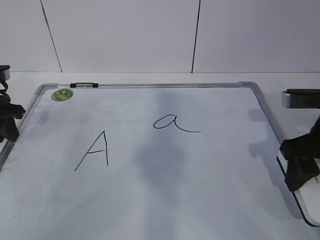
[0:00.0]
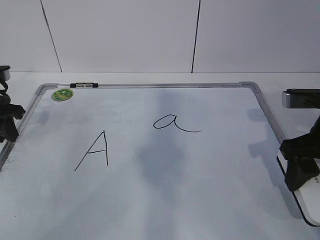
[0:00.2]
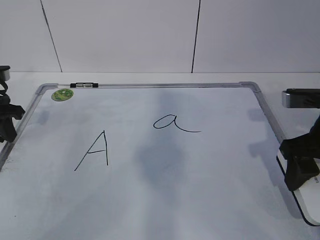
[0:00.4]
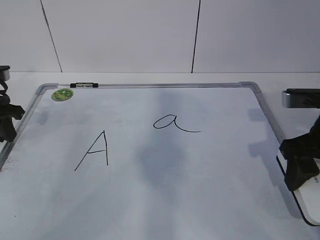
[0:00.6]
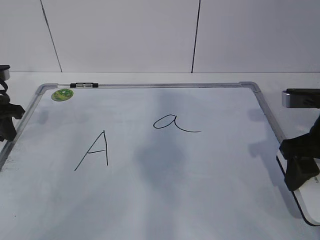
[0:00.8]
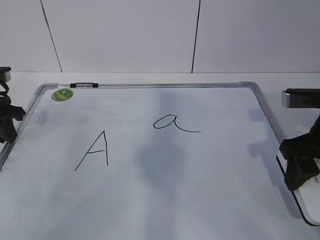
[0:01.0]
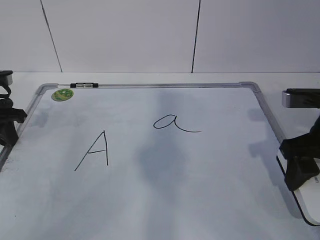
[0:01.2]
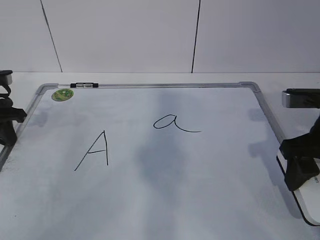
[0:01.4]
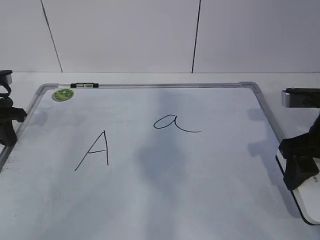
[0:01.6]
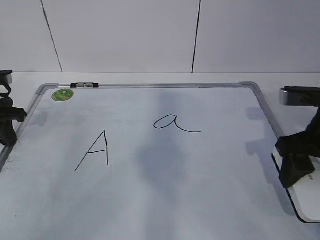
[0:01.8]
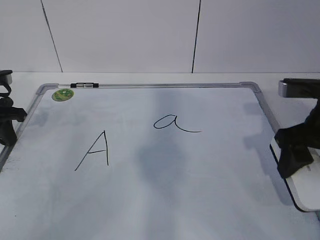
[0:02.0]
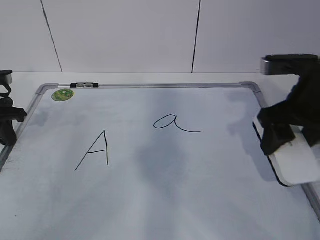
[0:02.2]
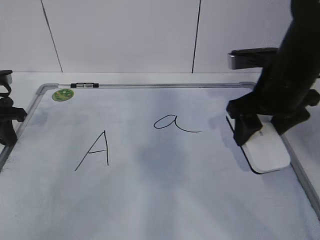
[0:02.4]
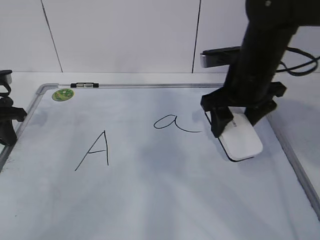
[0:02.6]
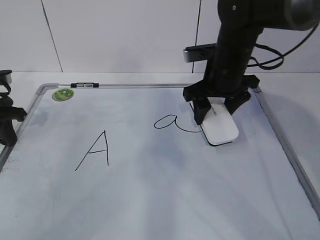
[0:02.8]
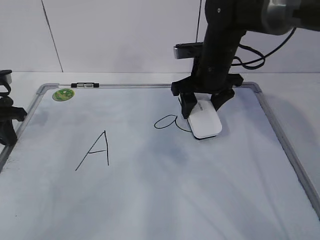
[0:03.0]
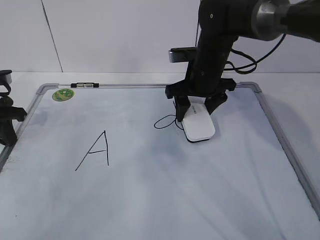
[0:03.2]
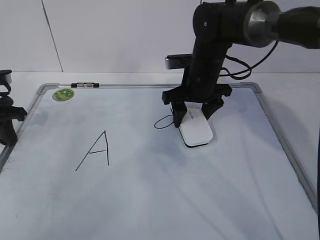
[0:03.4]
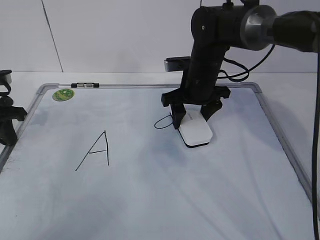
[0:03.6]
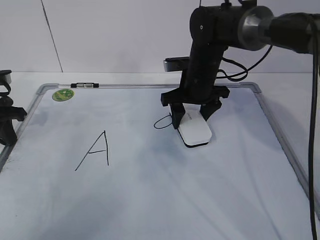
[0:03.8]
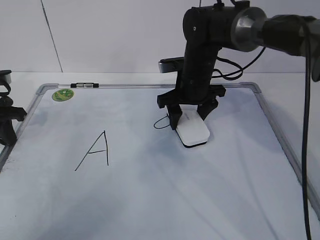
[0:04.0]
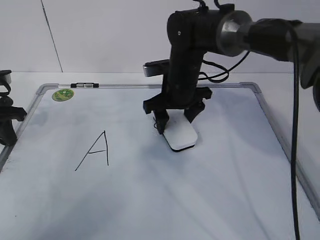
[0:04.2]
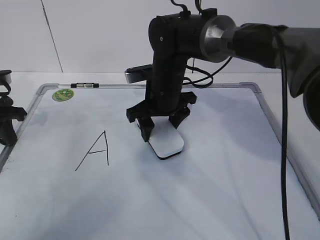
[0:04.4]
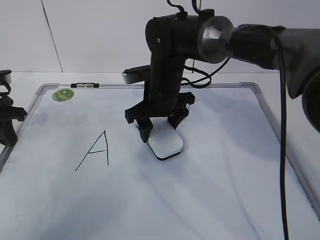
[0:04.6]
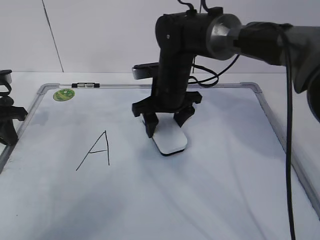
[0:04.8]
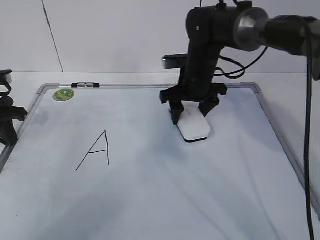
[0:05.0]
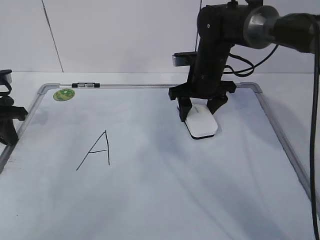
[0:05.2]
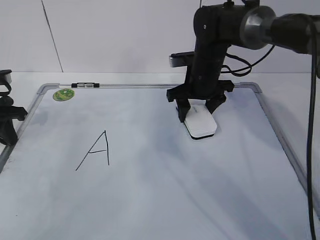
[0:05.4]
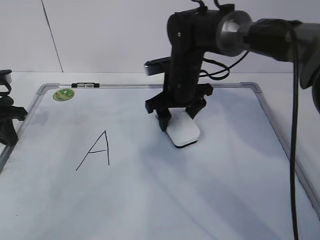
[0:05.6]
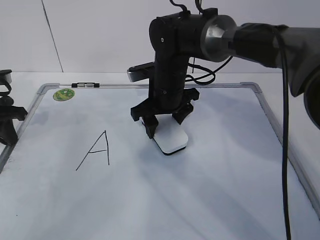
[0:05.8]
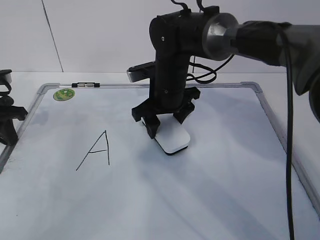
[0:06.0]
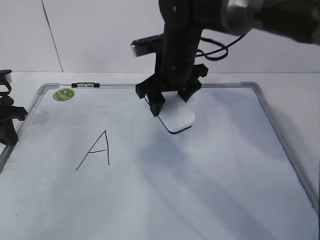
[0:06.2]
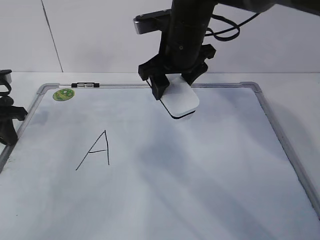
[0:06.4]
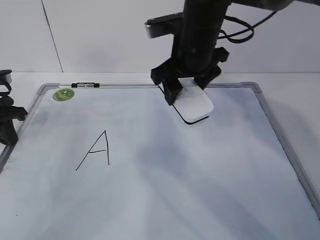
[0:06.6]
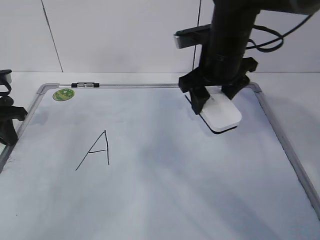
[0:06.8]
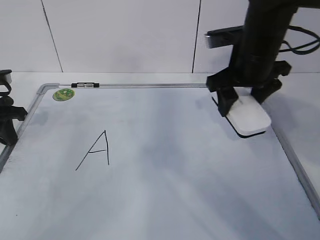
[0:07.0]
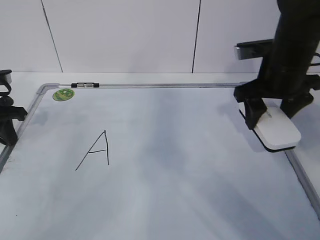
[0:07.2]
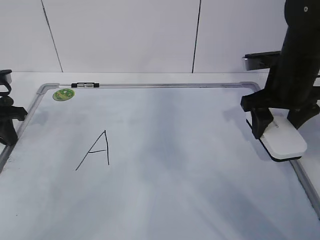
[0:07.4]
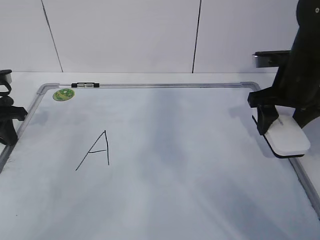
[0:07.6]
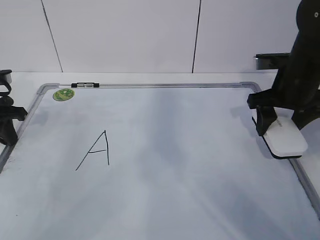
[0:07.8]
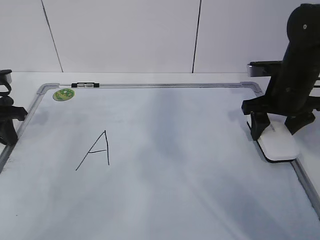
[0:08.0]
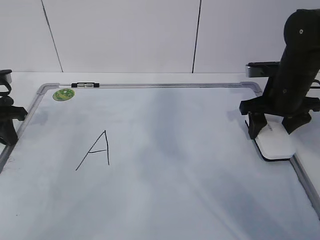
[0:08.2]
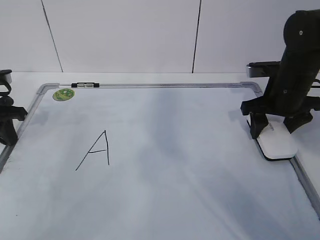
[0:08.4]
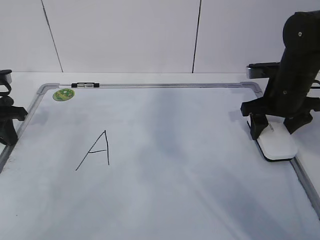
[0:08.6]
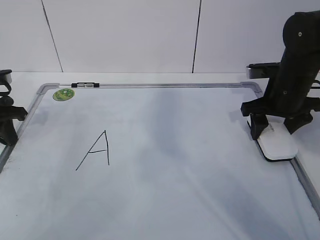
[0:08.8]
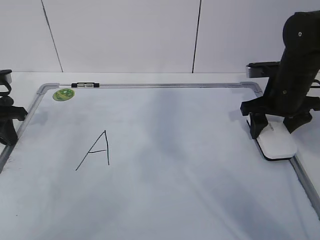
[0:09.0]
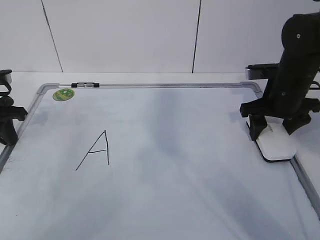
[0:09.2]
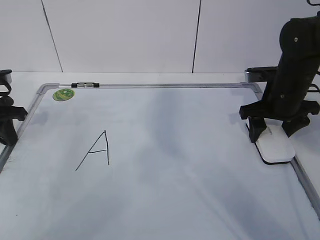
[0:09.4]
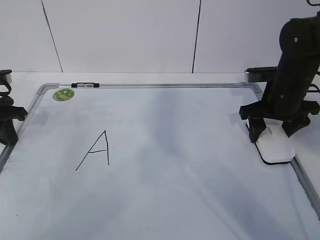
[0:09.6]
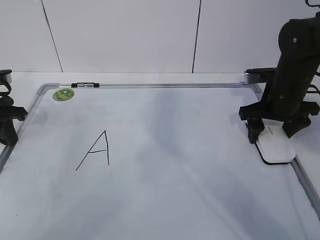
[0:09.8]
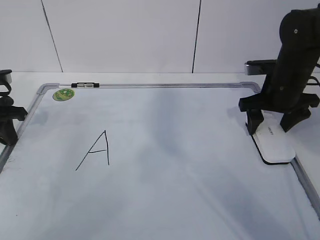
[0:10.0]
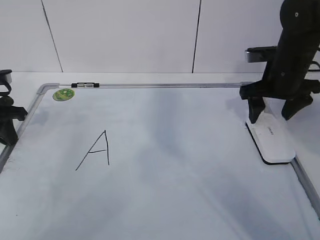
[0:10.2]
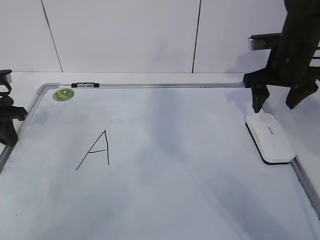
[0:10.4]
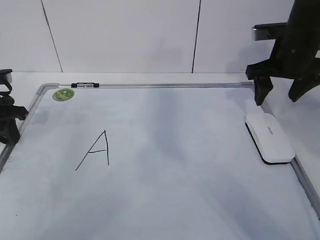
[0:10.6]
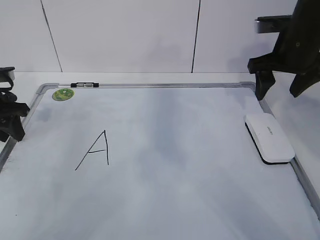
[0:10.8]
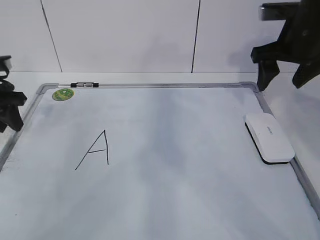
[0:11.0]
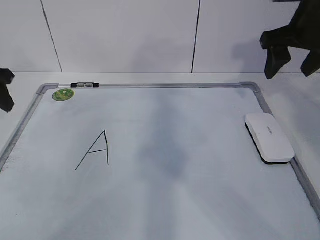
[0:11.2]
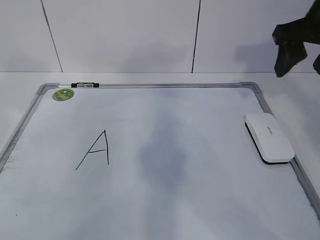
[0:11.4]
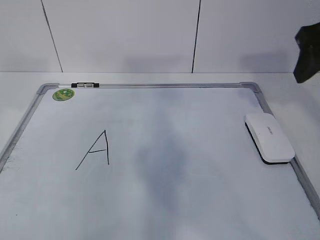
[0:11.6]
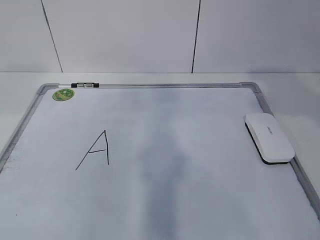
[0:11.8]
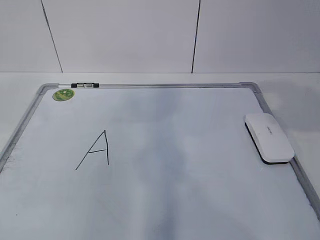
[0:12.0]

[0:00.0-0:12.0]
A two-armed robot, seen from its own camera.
Task of the whole recording: pick up the eraser on the blackboard and erase the letter "a".
Step, 0:00.0 to 0:02.2: Erase the letter a with your right hand.
Step, 0:02.4 to 0:05.4: Put down the eraser with your right hand.
0:00.0 to 0:01.6: The left gripper closes.
0:01.6 to 0:03.0: The right gripper goes approximately 20 cm forward and to the left.
0:03.0 to 0:04.4: The right gripper heads to the left, covering some 10 cm.
0:04.4 to 0:06.0: The right gripper moves some 10 cm to the right and comes back.
0:06.0 to 0:07.6: The right gripper is displaced to the right by approximately 20 cm.
0:07.6 to 0:09.0: The grippers make only small movements.
0:09.0 to 0:10.4: The right gripper ends up about 5 cm from where it was, and opens.
0:10.4 to 0:12.0: The right gripper moves backward and upward, roughly 25 cm, and closes up, while the left gripper goes approximately 30 cm upward and backward, and opens up.

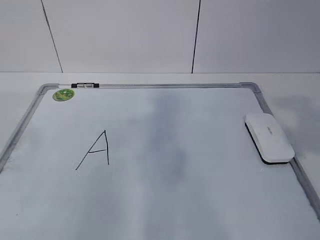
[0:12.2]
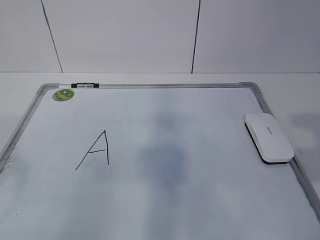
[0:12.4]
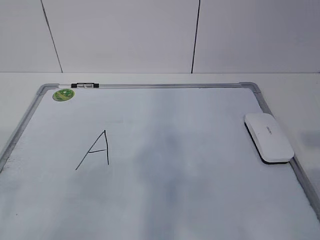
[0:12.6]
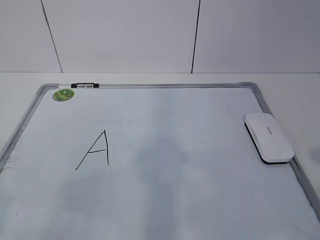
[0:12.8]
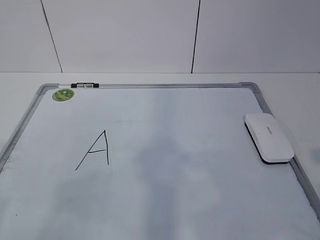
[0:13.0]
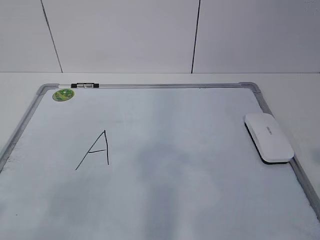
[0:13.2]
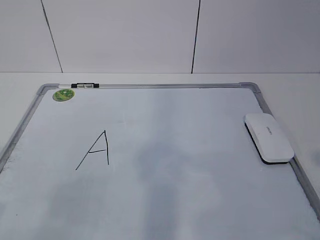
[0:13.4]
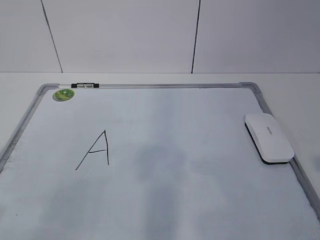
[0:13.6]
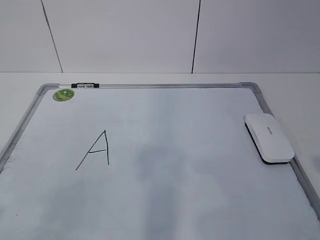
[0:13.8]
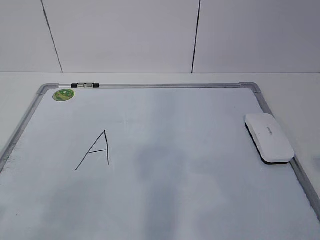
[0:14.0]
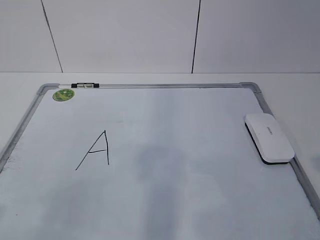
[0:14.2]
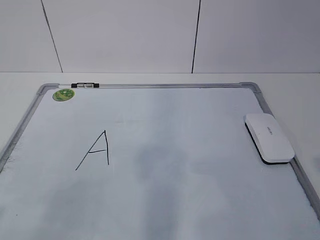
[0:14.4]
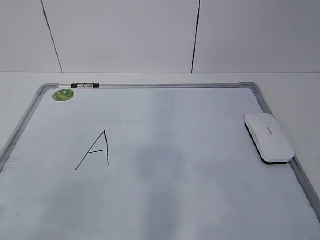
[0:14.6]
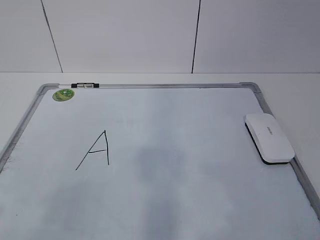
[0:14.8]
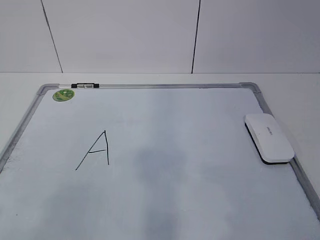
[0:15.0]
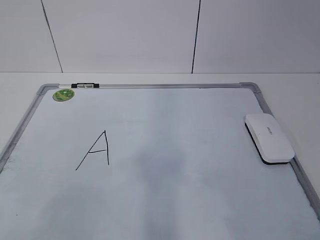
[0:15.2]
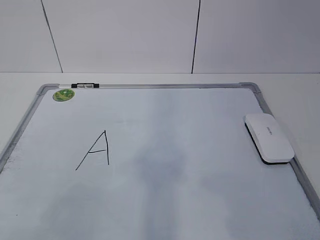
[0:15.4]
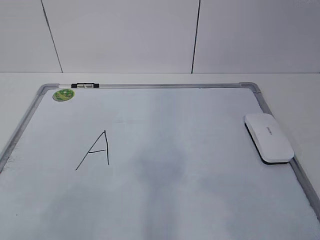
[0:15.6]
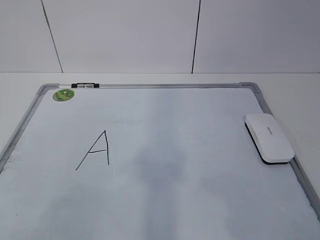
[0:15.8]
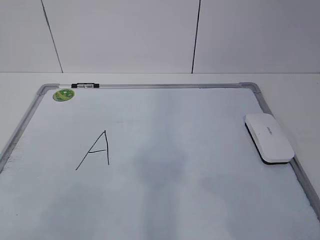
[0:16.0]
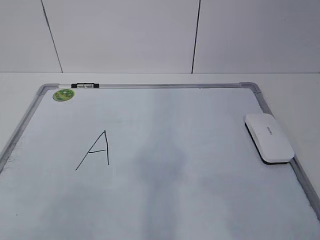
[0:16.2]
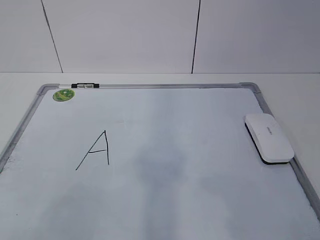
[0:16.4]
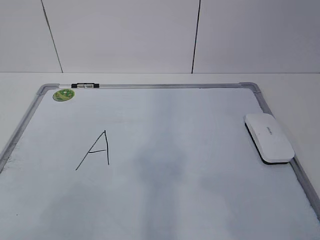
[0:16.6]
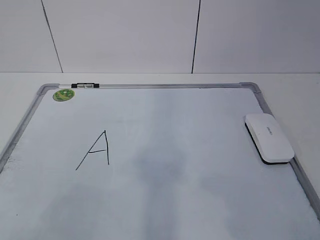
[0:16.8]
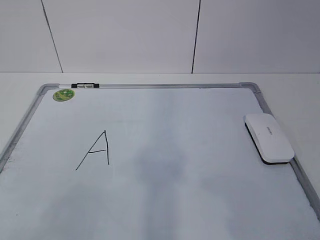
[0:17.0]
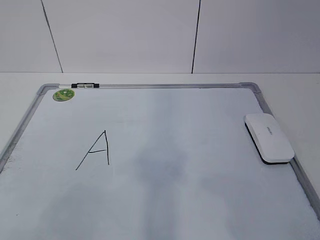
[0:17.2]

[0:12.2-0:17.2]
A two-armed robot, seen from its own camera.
Task of the whole recording: pick up the eraser on the blackboard and erase the letter "a".
0:15.6 to 0:17.2: The two grippers keep their place.
